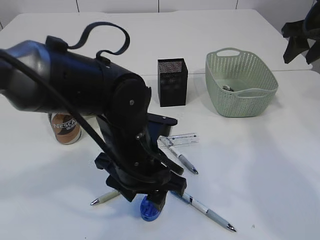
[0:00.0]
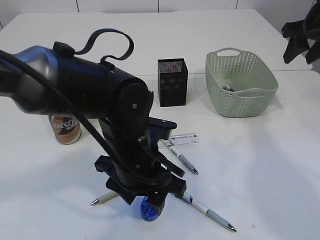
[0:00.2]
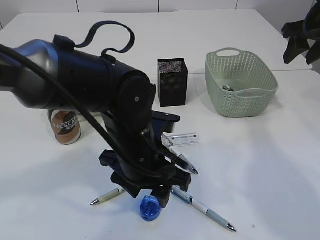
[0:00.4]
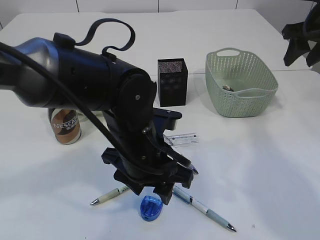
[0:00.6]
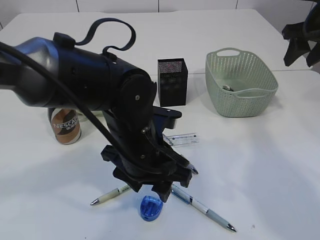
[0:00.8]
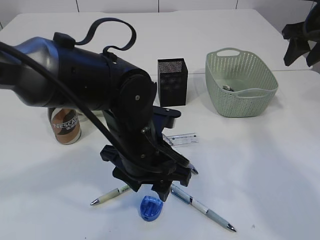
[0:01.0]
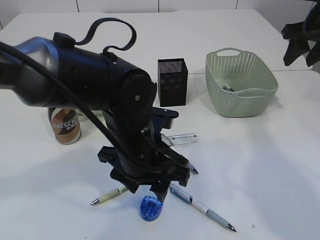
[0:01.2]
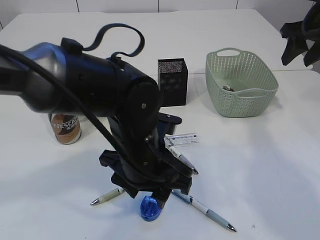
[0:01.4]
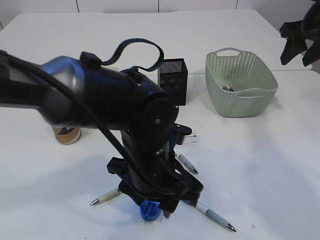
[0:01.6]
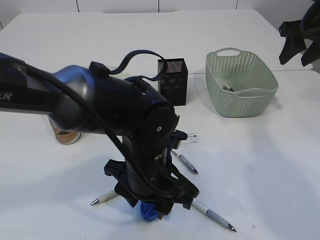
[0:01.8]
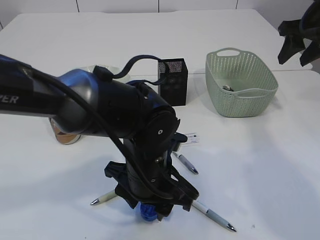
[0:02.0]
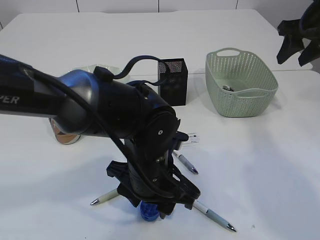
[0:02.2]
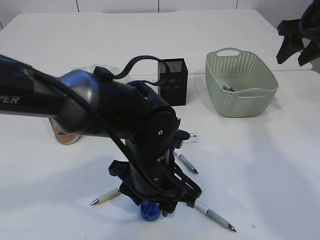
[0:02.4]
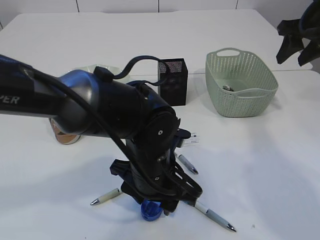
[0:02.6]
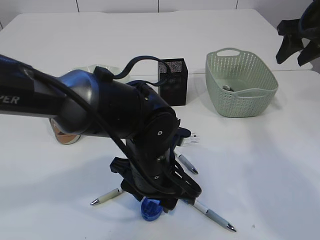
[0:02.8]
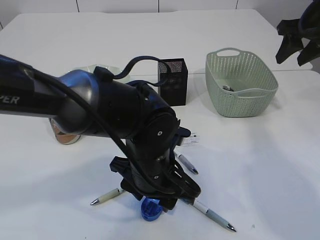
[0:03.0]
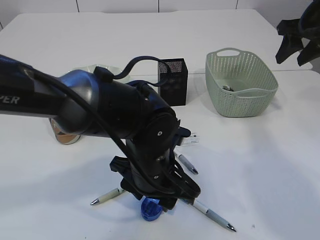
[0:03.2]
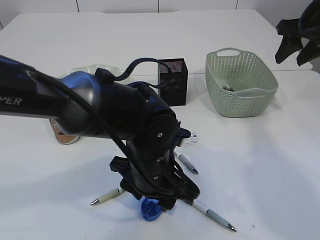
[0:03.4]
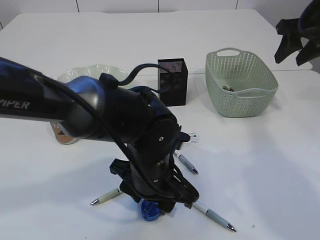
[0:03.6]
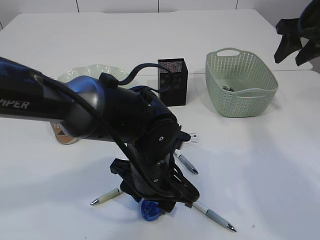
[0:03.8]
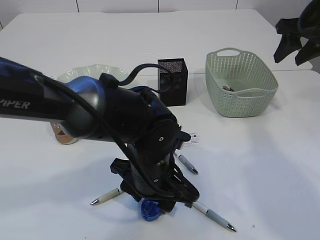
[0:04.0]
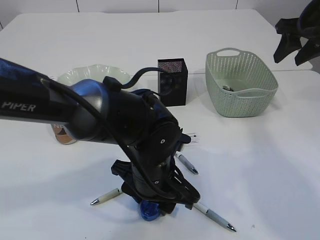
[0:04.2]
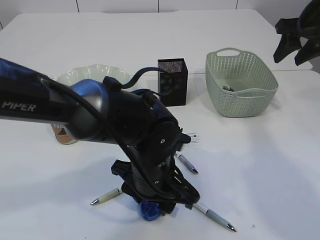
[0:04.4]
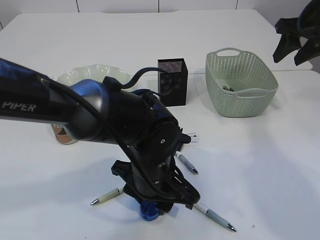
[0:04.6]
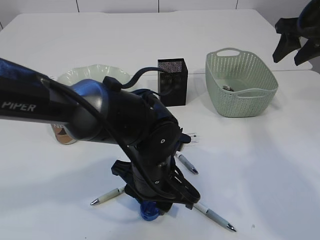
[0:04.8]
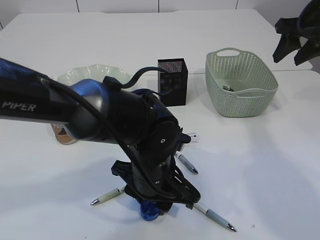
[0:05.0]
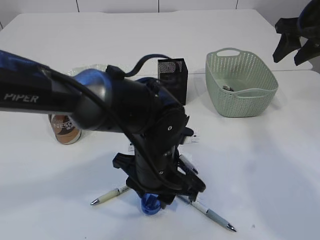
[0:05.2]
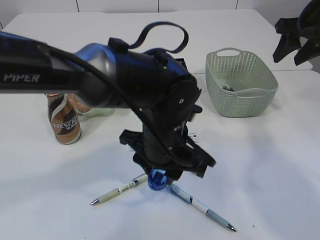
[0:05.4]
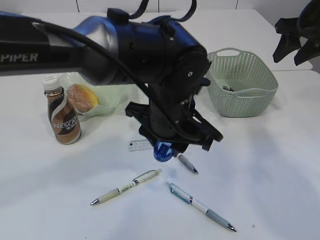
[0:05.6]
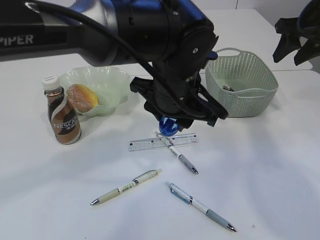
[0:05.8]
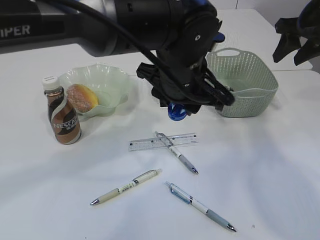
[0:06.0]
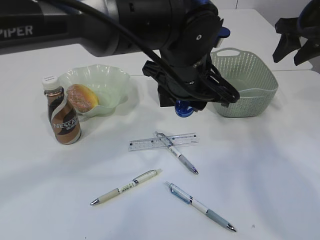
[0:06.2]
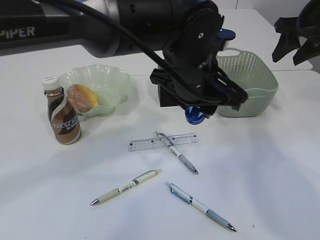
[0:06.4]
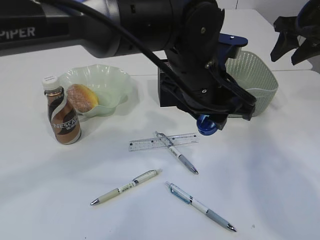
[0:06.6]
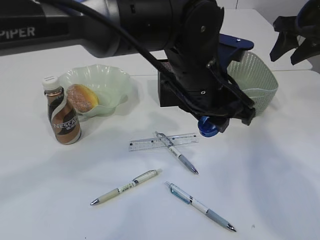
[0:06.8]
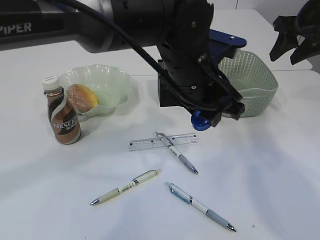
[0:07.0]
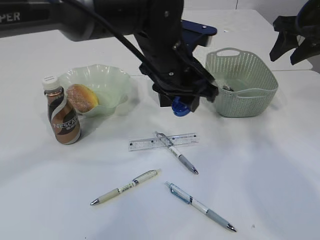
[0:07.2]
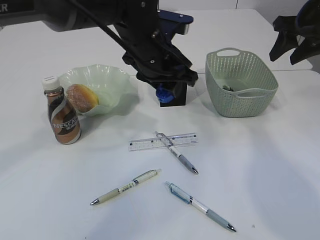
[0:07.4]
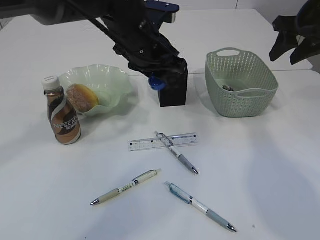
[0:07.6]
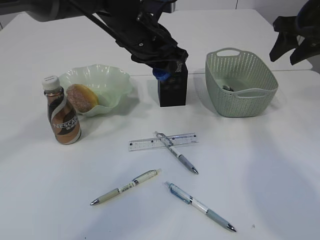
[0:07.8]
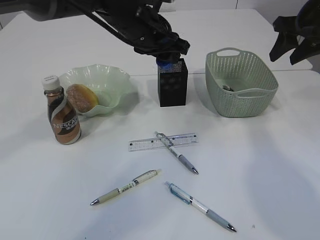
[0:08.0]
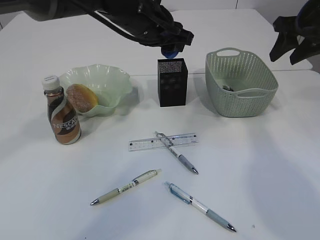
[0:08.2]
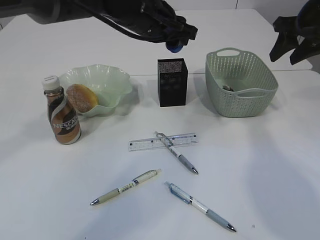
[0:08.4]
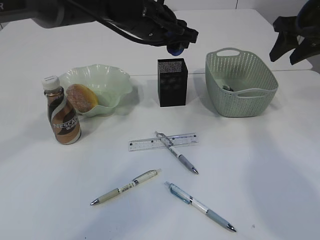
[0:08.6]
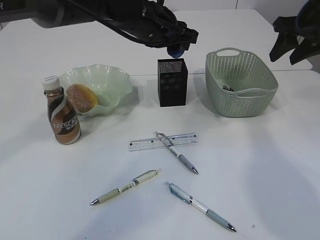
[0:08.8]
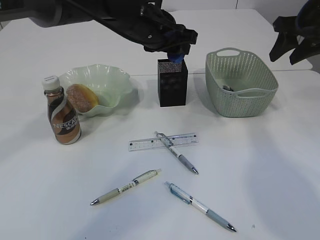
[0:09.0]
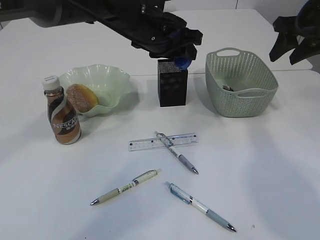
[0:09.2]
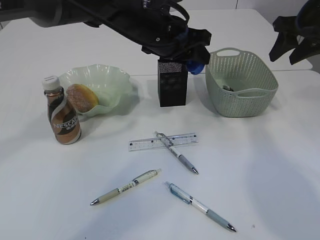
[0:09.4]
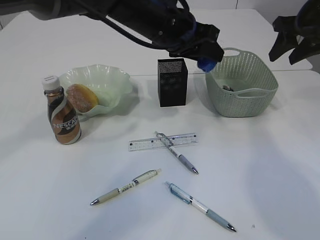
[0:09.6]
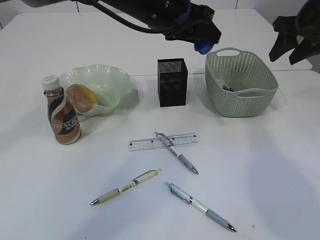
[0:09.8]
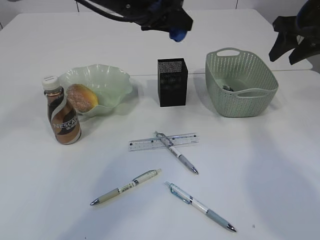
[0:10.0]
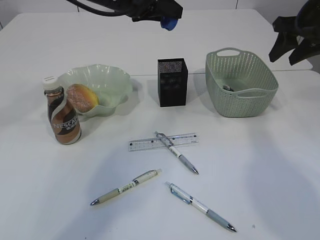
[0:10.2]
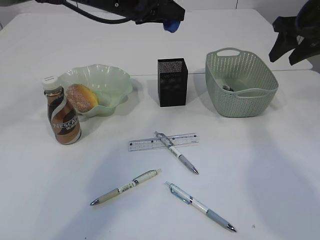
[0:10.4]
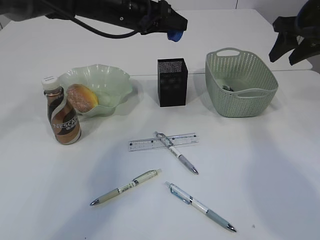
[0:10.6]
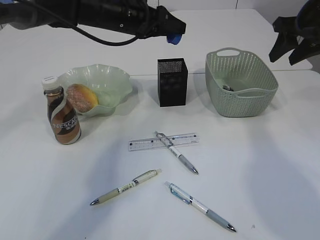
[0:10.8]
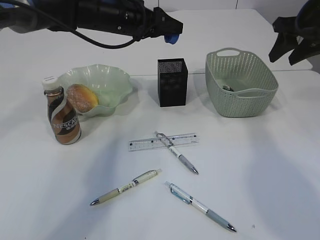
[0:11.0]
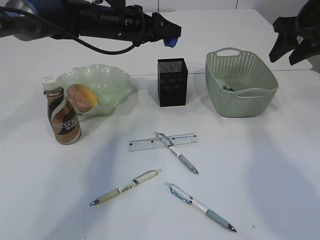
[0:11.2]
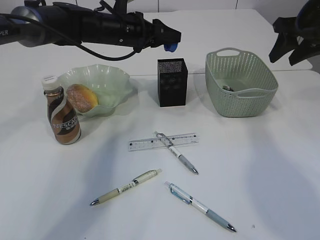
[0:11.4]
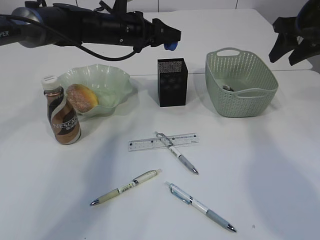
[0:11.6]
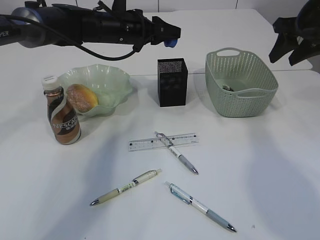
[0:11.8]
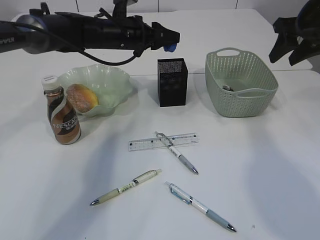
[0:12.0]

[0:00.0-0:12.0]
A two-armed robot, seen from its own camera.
Step, 0:00.0 to 0:05.4: Pick up the blue pencil sharpener.
0:00.0 to 0:04.4: There are only small adjustments of the grippers.
0:04.4 to 0:06.0: The left gripper moves upward and forward, about 15 cm.
0:06.0 to 0:07.6: The left gripper is displaced forward and to the left by some 10 cm.
0:09.0 to 0:10.4: The left gripper shifts about 5 cm to the left.
0:10.4 to 0:12.0: The left gripper is displaced downward by some 10 cm.

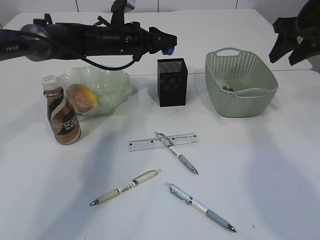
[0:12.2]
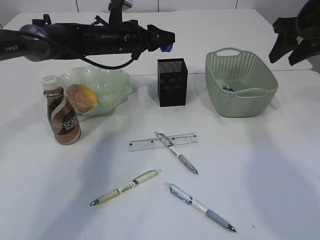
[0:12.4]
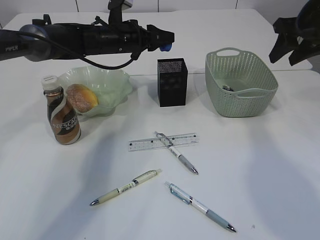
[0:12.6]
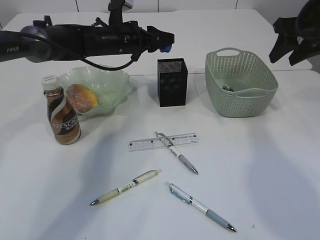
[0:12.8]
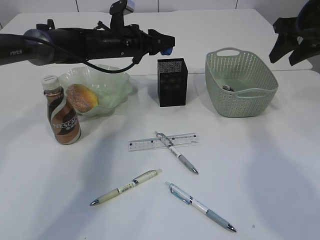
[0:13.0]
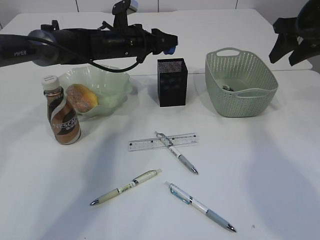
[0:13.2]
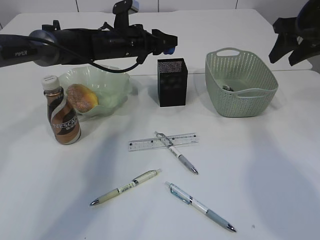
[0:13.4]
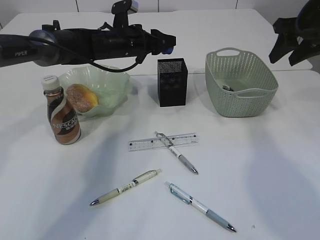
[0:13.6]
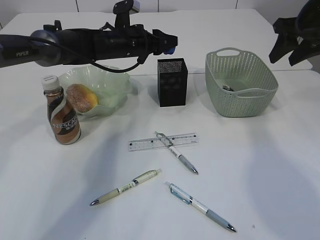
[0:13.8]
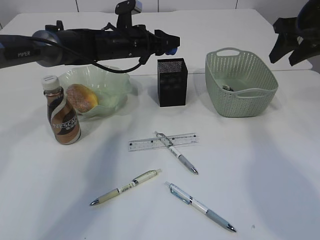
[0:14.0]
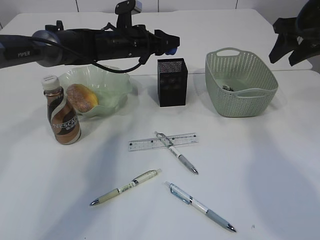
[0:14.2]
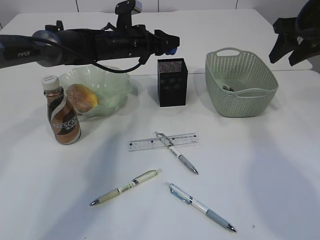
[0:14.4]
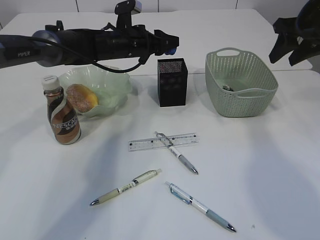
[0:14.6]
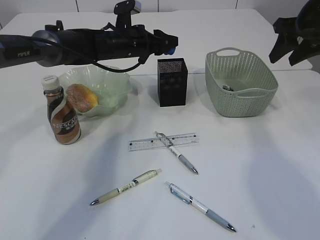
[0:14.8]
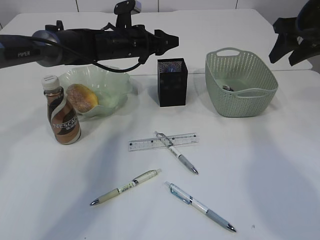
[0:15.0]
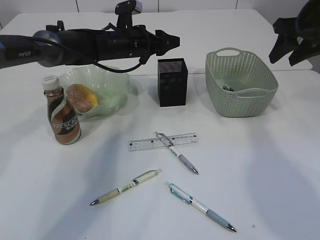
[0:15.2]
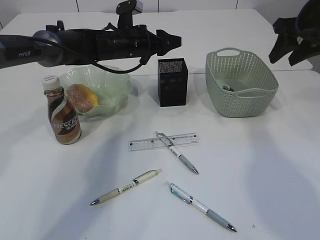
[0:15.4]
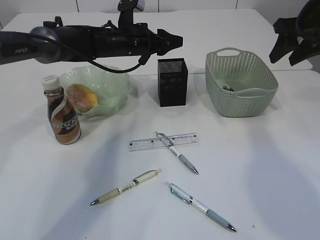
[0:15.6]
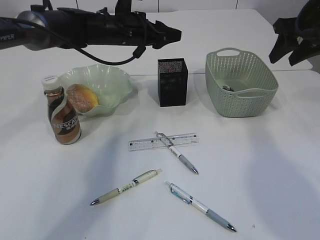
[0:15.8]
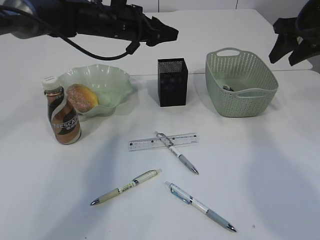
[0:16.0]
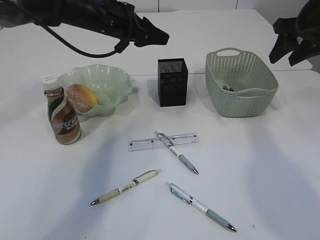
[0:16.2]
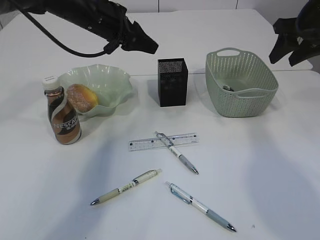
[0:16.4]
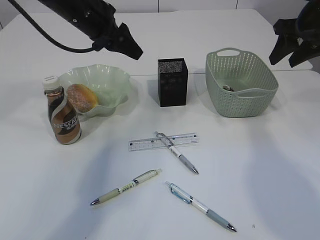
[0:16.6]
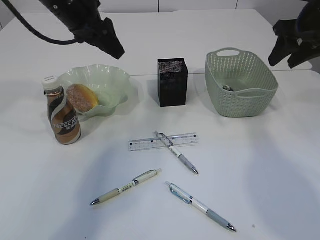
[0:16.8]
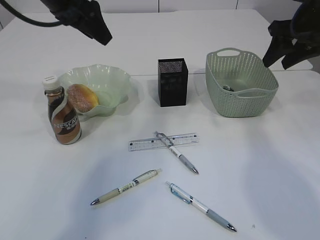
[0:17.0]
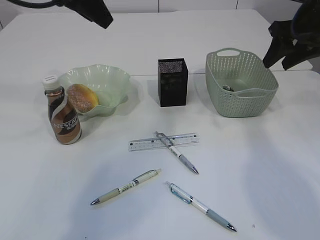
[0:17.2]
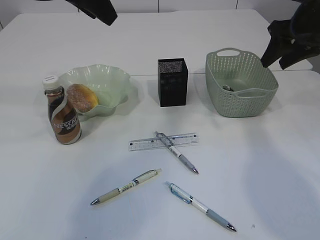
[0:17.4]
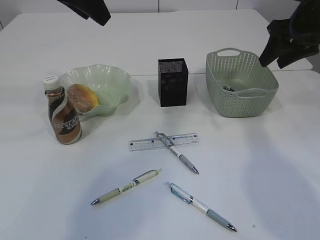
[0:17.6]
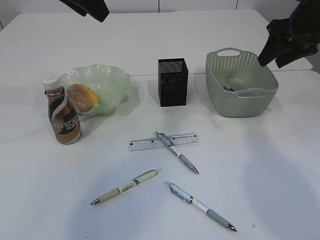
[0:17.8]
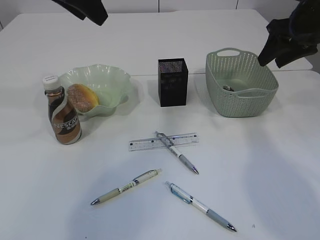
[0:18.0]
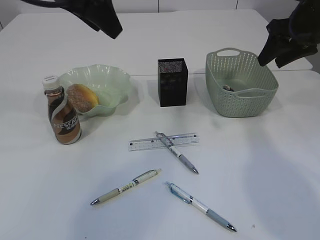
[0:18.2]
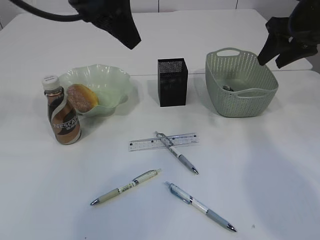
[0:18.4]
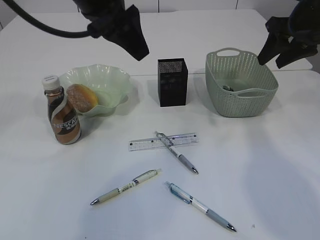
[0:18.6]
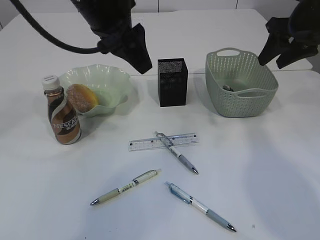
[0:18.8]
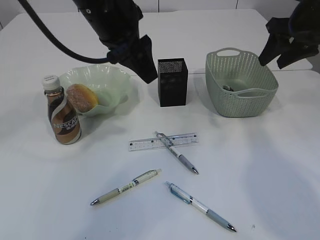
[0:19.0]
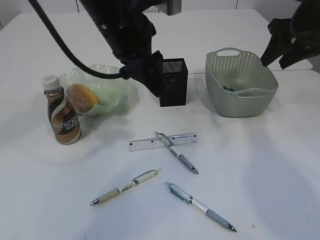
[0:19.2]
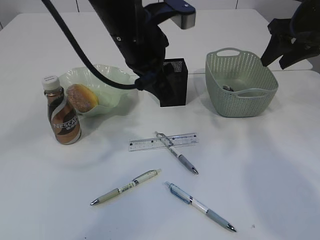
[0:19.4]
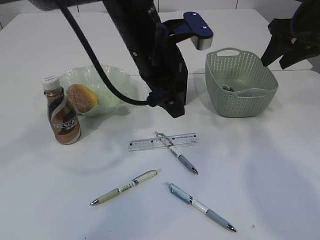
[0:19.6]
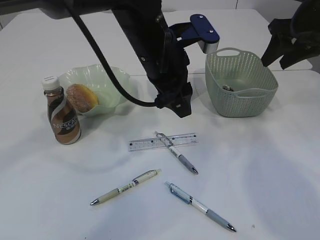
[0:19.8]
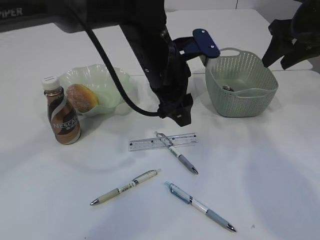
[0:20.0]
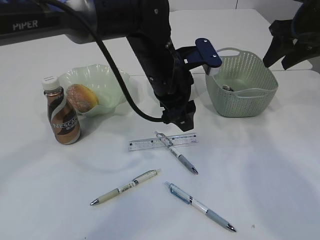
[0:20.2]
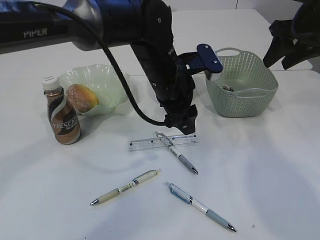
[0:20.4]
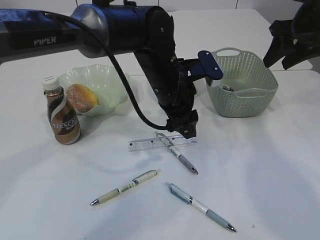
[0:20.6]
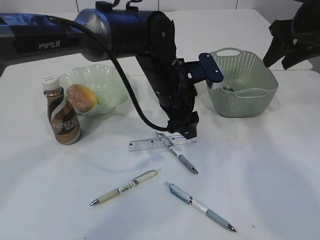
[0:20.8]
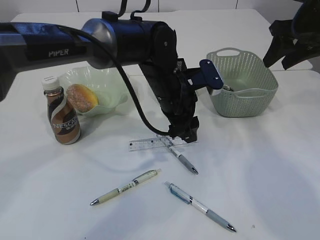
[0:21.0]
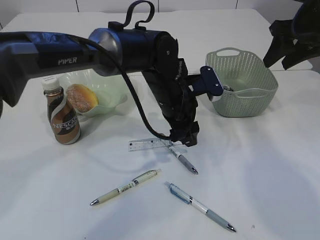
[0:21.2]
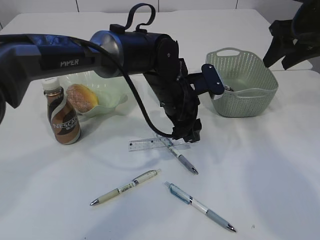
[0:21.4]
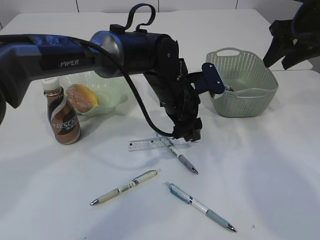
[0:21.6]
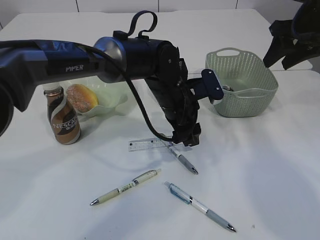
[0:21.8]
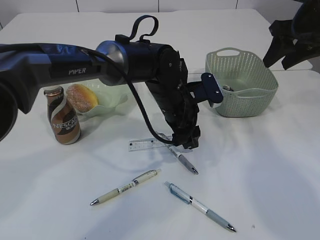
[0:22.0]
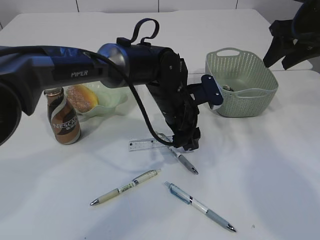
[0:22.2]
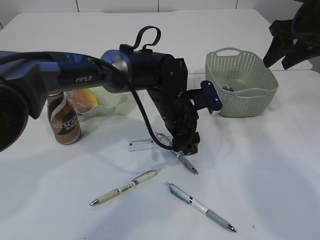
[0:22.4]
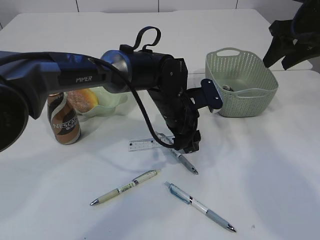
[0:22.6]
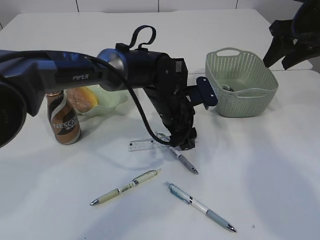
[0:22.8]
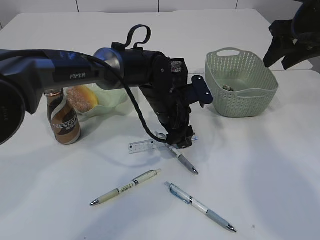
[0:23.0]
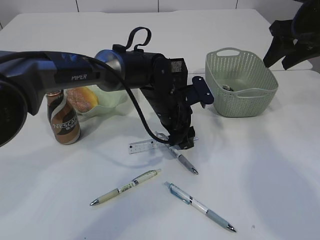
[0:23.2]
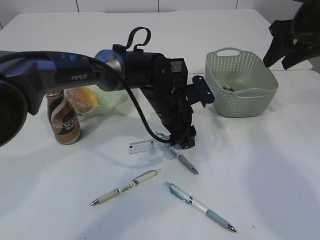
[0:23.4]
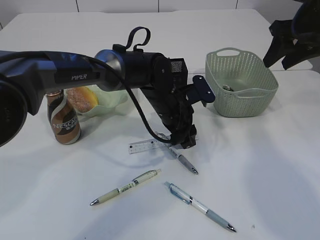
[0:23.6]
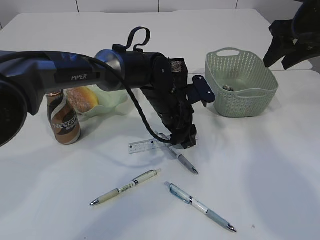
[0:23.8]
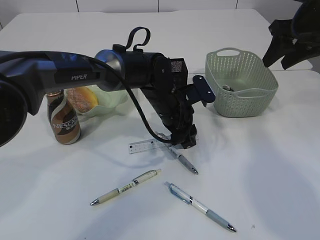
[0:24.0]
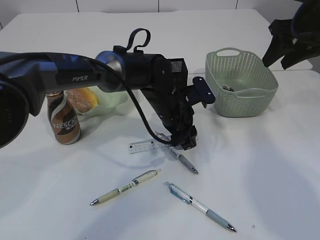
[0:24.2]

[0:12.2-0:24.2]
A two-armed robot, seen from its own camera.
Step, 0:12.2 to 0:15.0: Place the blue pencil sharpener into the pen holder.
0:12.2 to 0:13.8: The grippers stay close to where they were, moving slightly.
0:13.8 to 0:15.2: Both grippers stay put.
0:15.2 to 0:16.6: The left gripper heads upward, backward and to the left, covering some 15 cm.
0:16.6 to 0:18.2: The left gripper moves upward and backward, about 15 cm.
0:18.2 to 0:19.8: The left gripper moves to the right and downward, approximately 15 cm.
0:19.8 to 0:21.2: The left gripper heads downward, covering about 10 cm.
0:21.2 to 0:24.2: The grippers move only a little.
